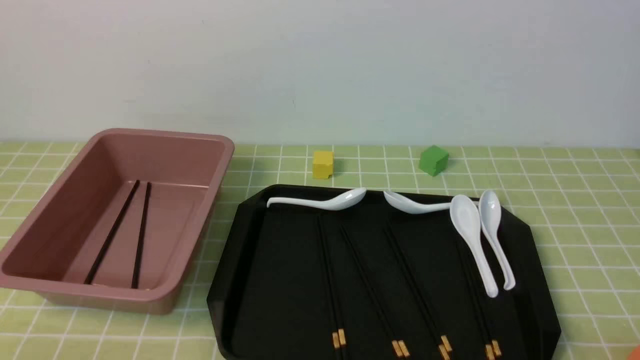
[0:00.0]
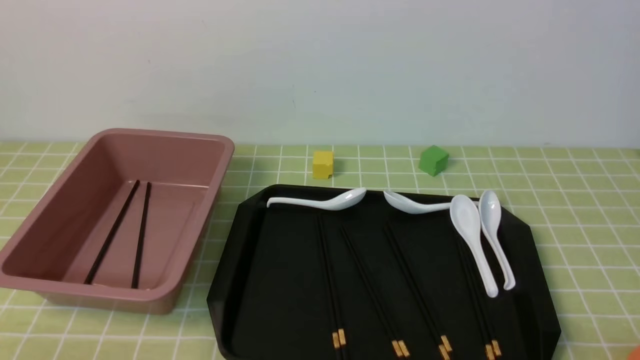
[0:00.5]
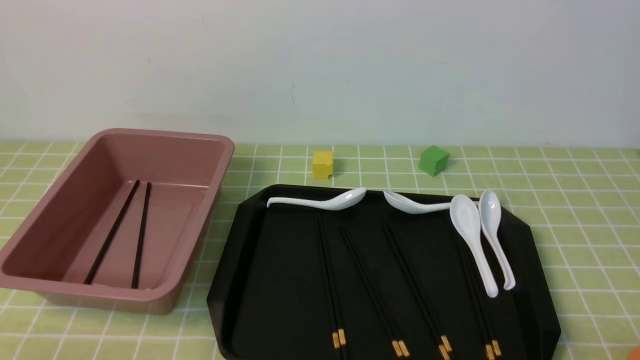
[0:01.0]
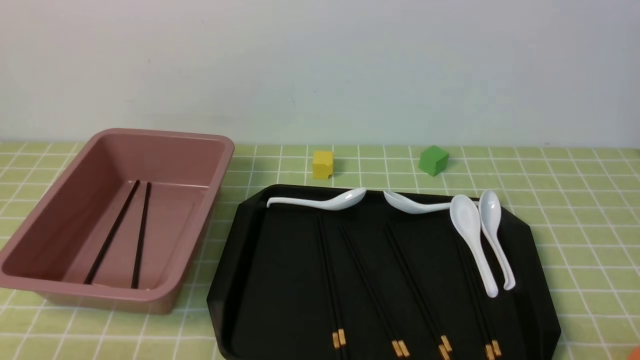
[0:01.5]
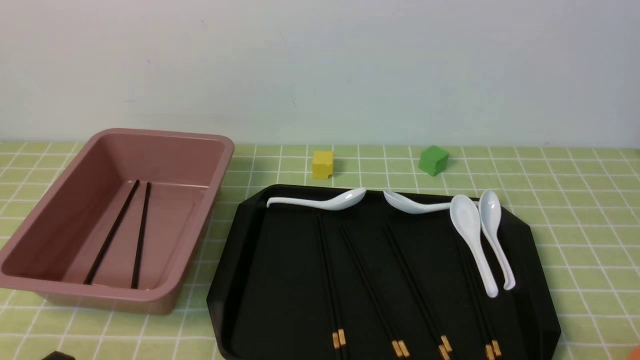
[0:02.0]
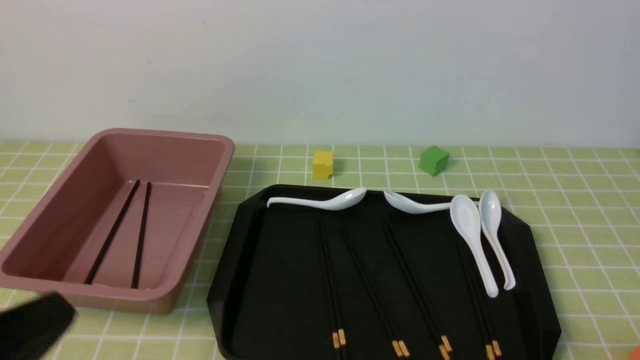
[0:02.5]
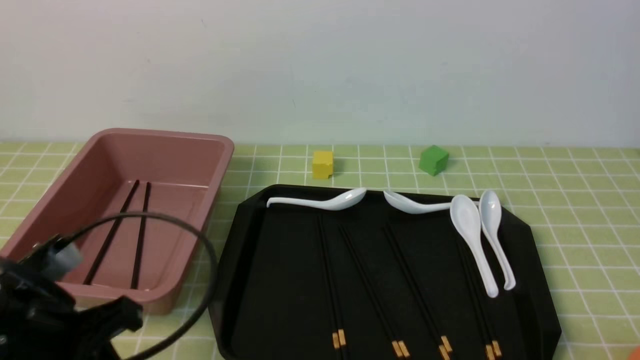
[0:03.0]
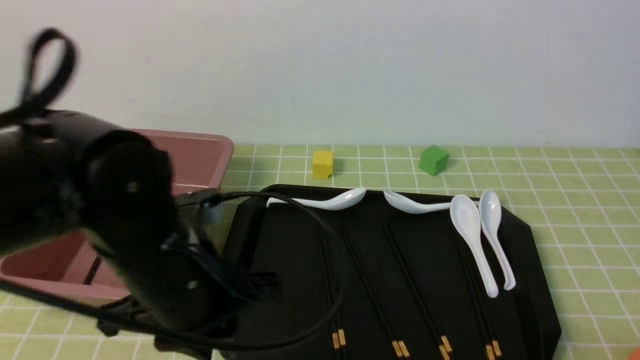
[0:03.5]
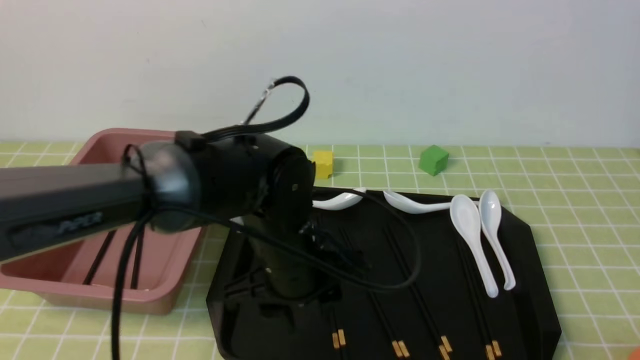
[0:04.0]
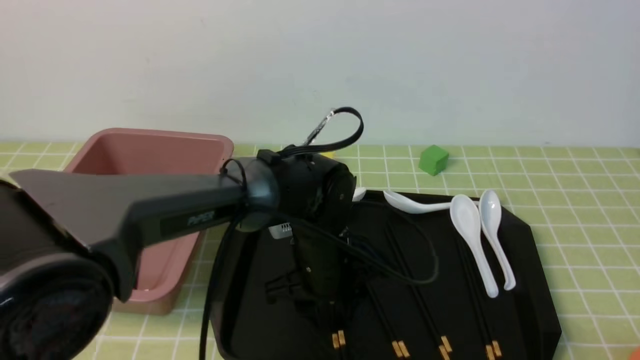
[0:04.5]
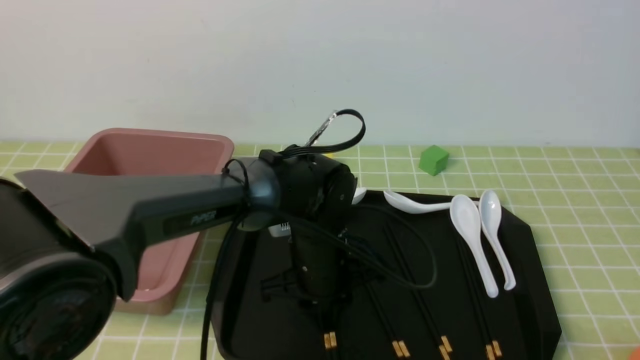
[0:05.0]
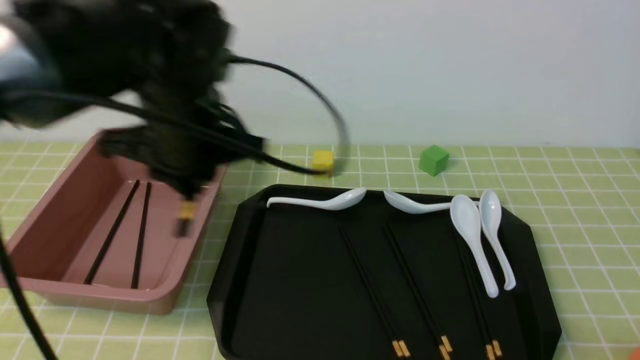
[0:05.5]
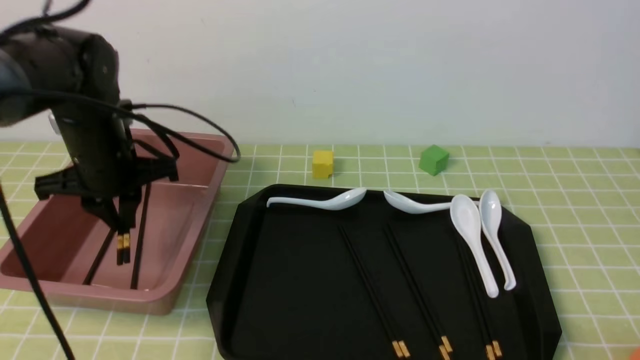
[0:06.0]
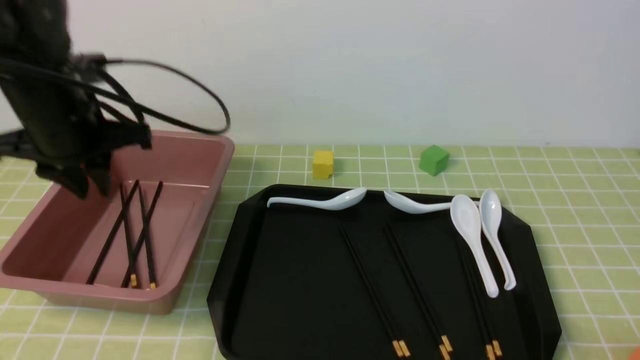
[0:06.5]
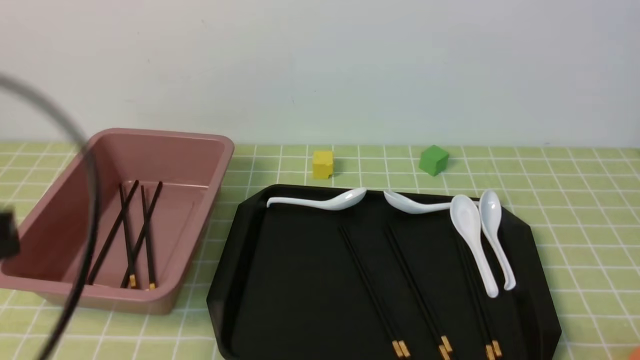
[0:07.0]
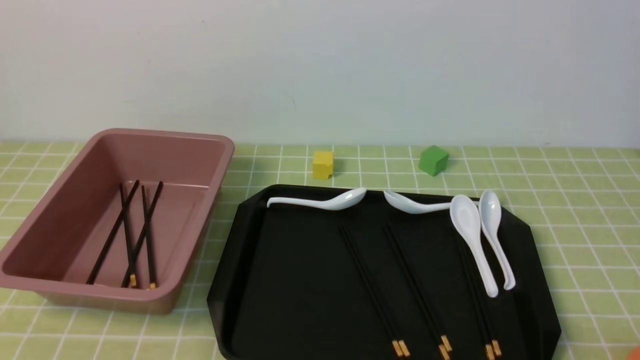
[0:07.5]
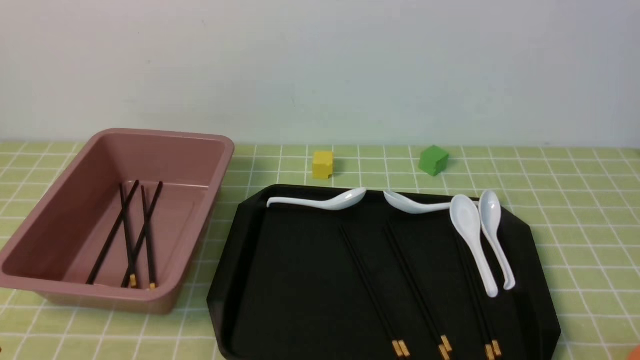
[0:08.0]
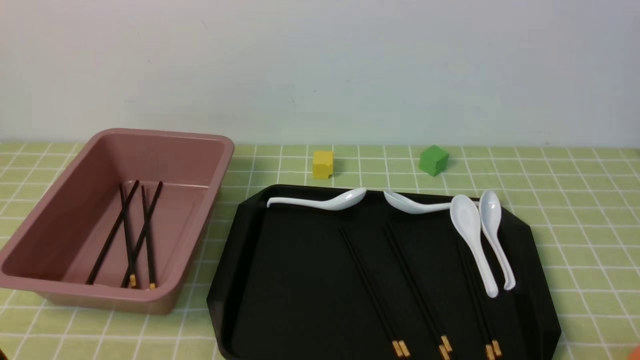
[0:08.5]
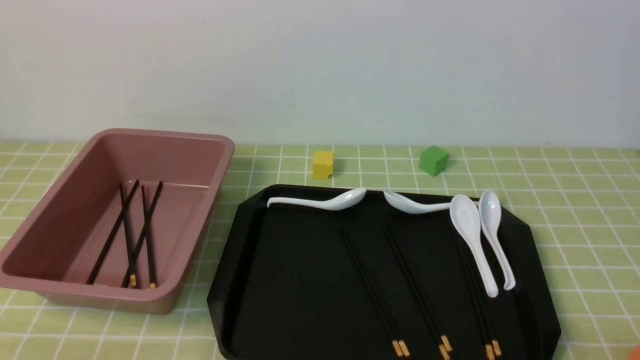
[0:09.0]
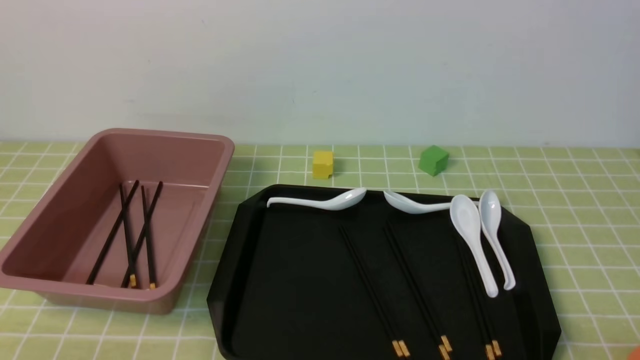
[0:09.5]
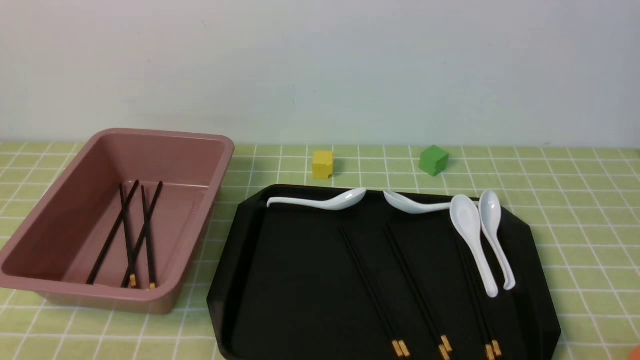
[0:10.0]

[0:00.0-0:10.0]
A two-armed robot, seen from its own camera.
Step, 0:00.0 to 0:05.0: use the left arm to grab a pair of chopsticks.
Step, 0:05.5 to 0:06.5: use the left arm to put the chopsticks into the lunch box.
0:02.0 to 0:04.0: The left gripper is displaced forward and to the right by about 30 cm, and opens its fingers.
0:04.0 to 0:06.0: The left gripper goes roughly 20 cm to the left and forward, and closes up.
0:06.0 to 0:08.0: The left gripper heads backward, covering about 35 cm, and closes up.
